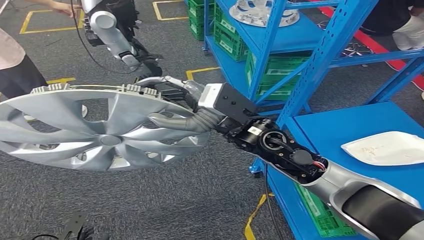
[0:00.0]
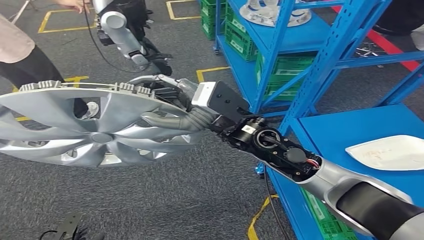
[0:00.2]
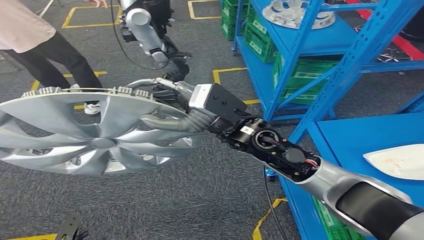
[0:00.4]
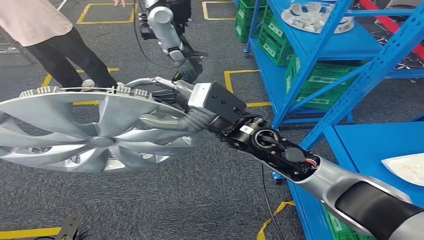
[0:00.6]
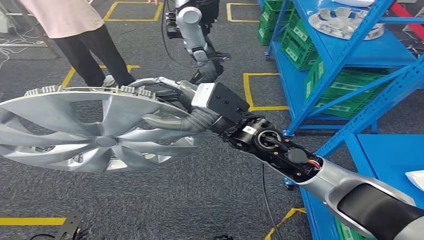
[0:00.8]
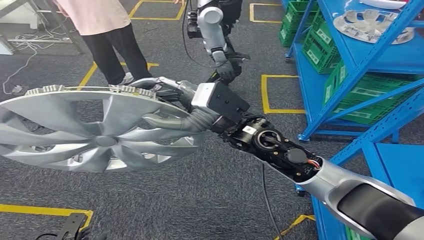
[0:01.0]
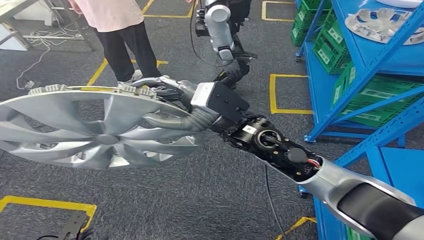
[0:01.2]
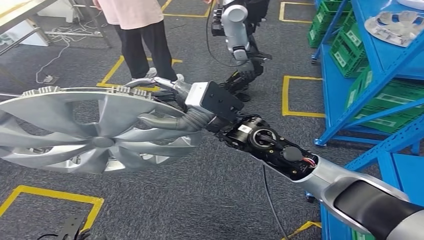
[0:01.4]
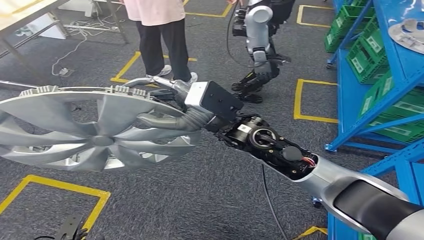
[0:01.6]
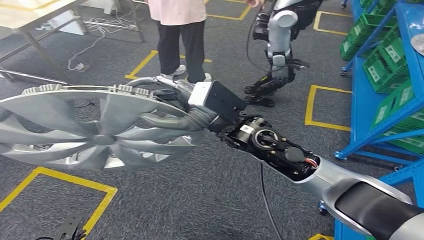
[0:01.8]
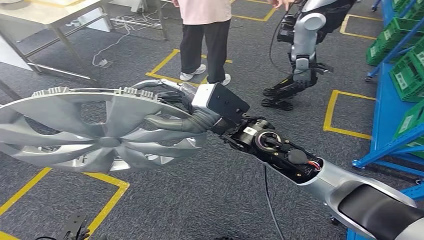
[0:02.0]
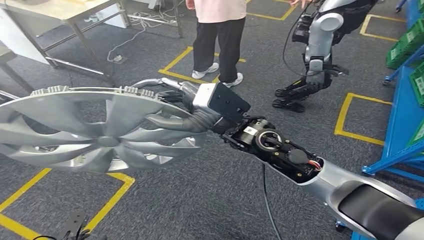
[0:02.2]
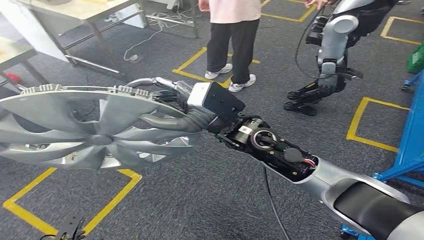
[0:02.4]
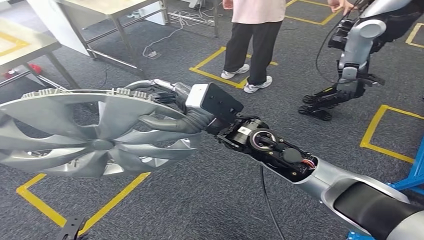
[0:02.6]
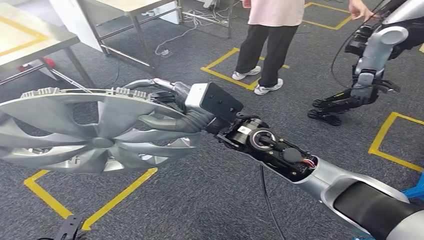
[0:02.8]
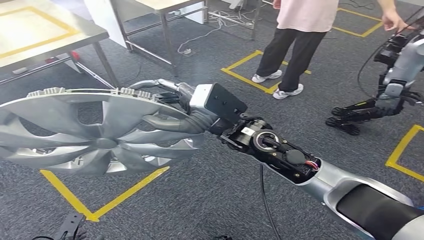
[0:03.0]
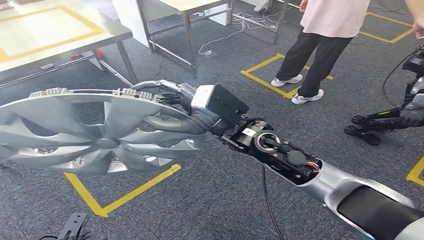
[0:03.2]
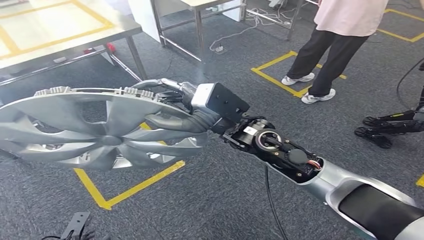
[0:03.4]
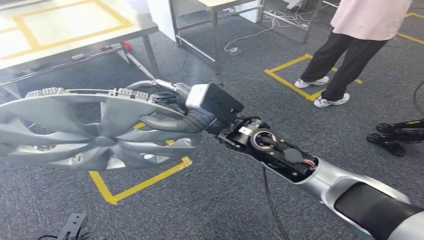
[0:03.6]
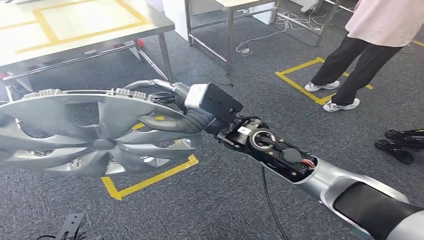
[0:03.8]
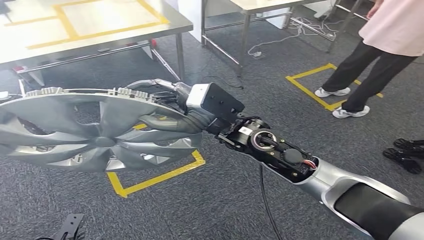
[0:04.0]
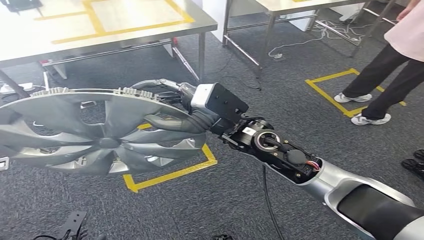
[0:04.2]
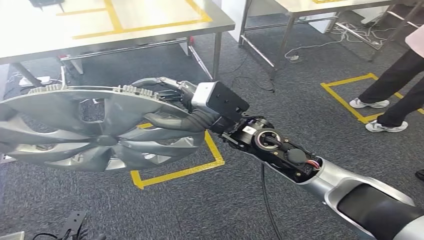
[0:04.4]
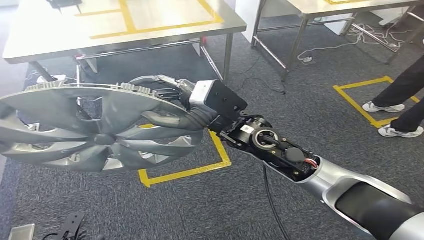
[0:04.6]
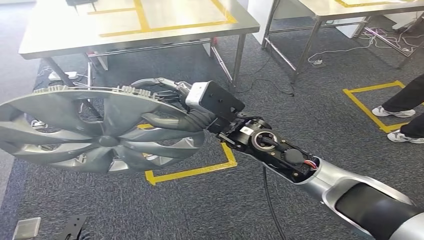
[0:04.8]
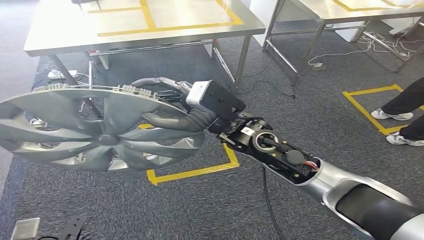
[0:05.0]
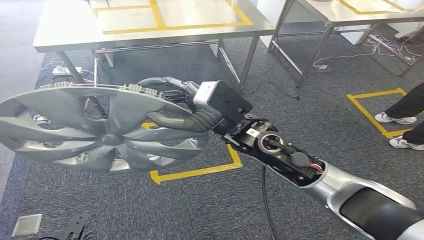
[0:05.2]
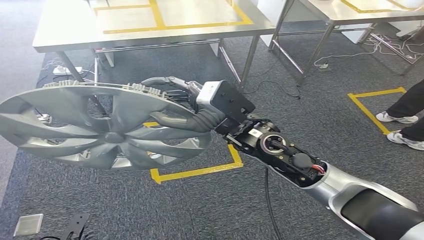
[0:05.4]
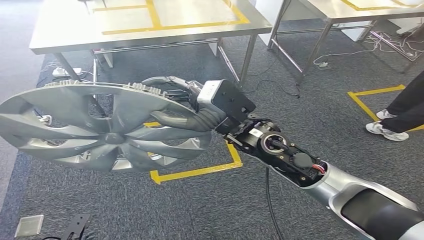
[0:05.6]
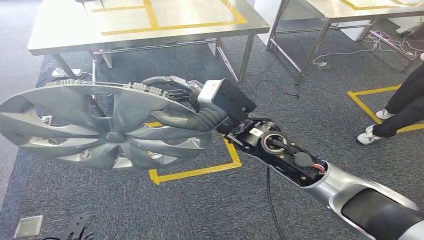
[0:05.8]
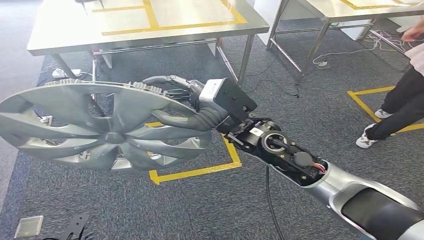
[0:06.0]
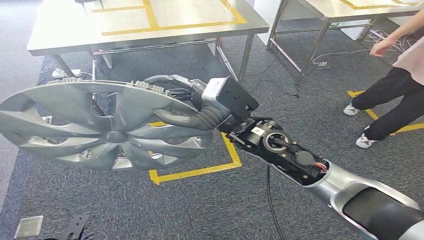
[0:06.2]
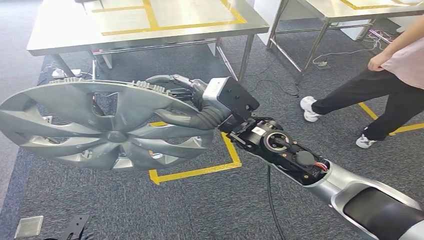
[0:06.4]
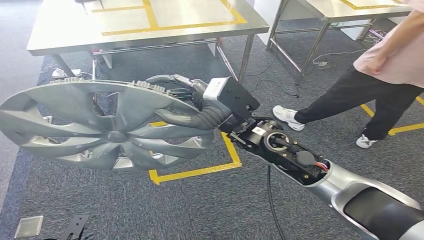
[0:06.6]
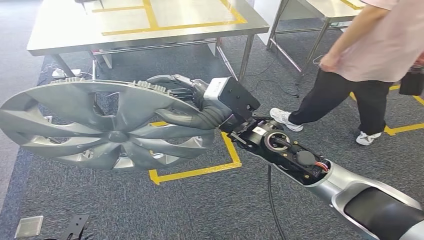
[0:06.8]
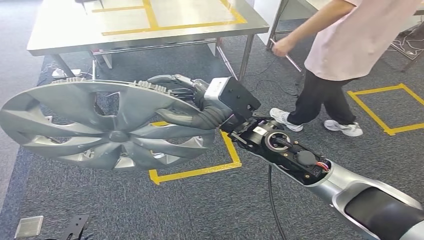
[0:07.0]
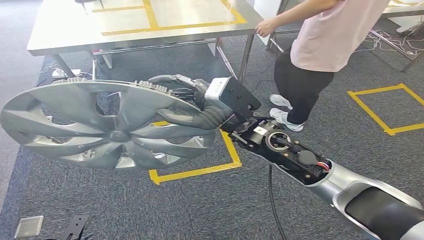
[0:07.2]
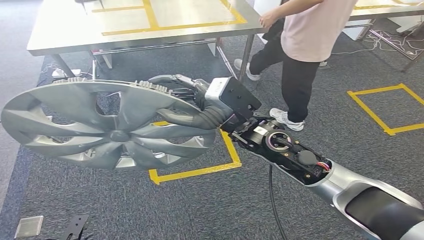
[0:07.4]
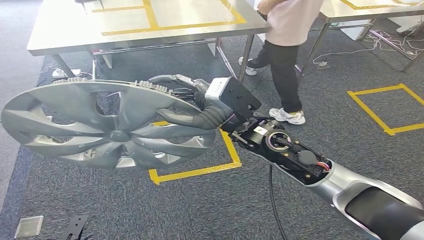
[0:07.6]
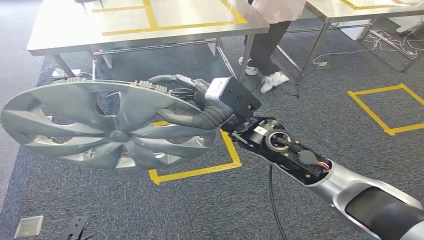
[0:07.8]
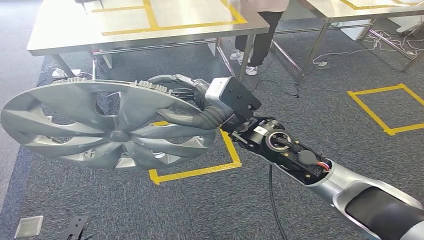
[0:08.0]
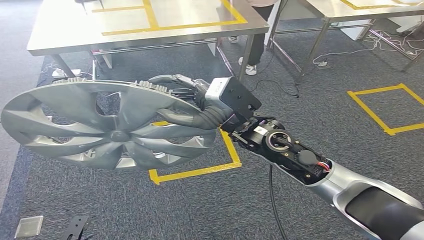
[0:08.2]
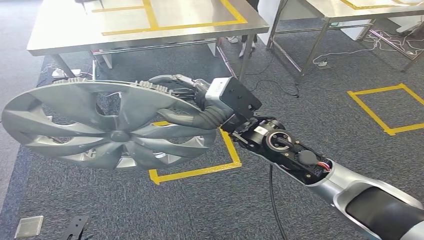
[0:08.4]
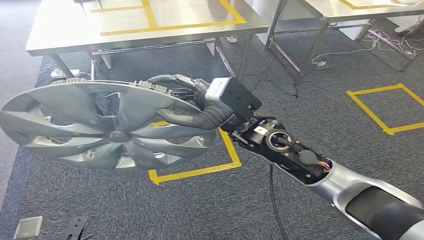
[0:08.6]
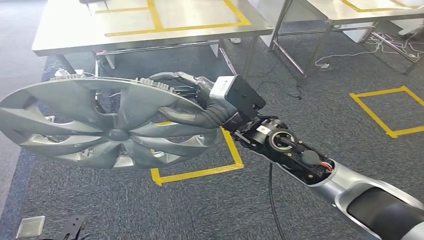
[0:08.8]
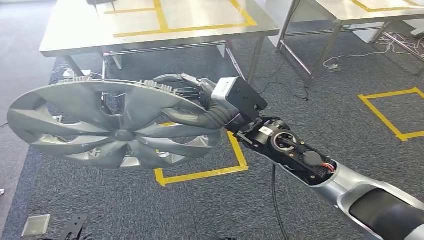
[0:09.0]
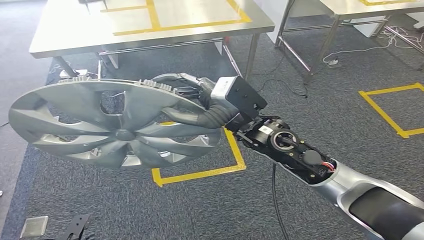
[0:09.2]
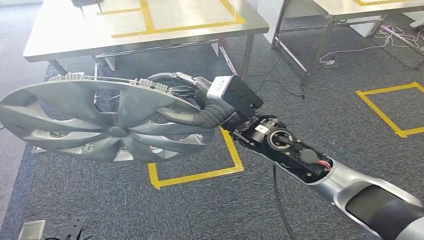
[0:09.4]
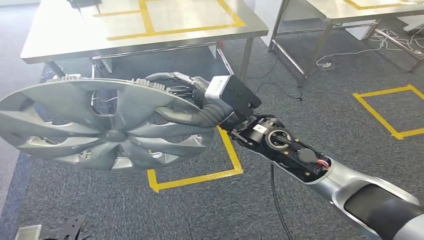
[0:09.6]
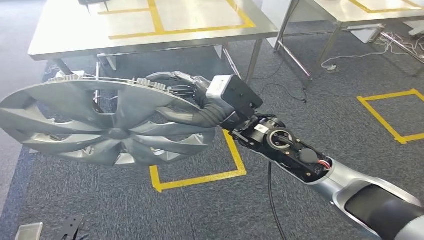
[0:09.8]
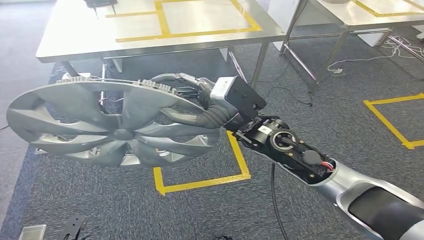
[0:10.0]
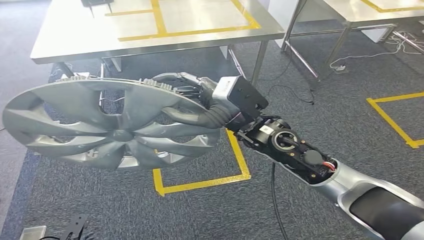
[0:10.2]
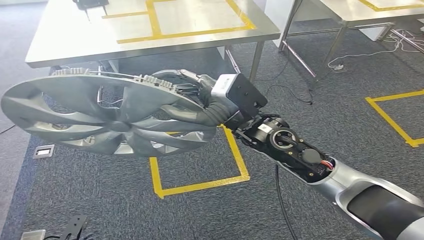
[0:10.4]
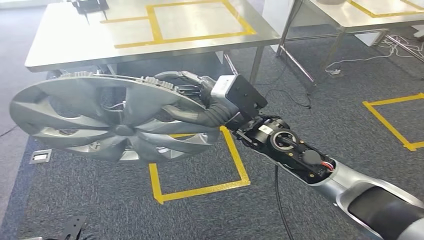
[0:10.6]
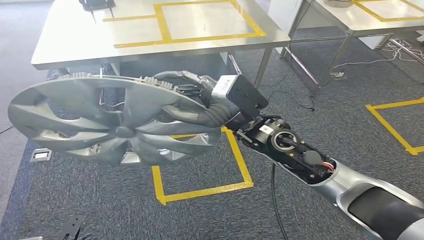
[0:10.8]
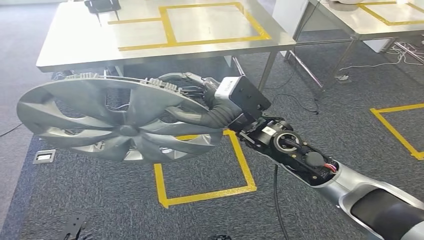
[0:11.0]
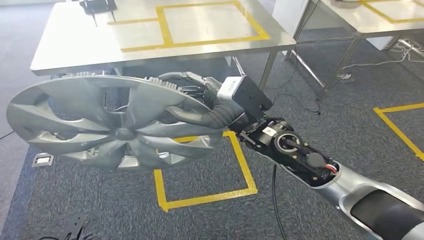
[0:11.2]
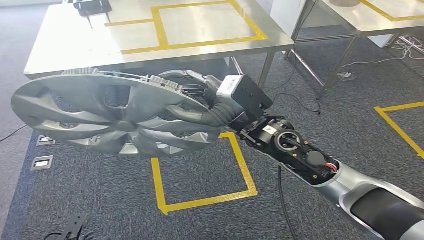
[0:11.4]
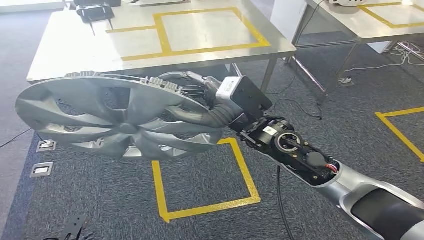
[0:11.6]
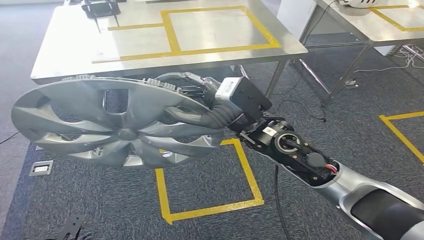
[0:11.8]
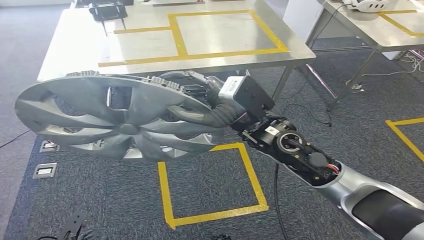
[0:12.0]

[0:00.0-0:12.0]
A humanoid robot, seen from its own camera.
0:06.0 to 0:07.6: Both hands stay put.

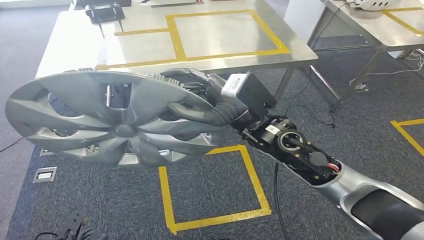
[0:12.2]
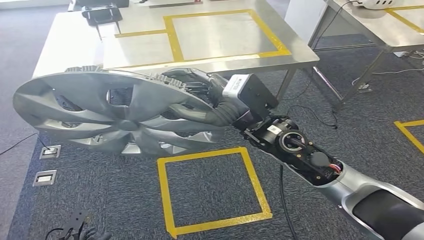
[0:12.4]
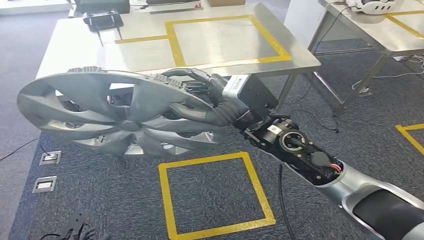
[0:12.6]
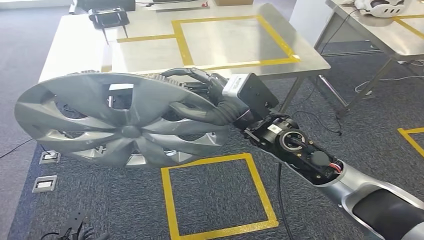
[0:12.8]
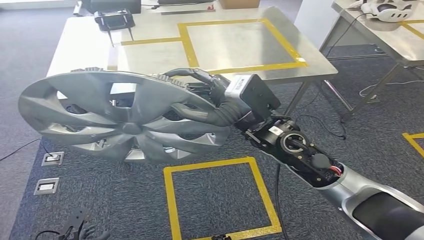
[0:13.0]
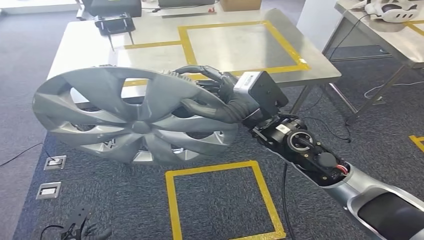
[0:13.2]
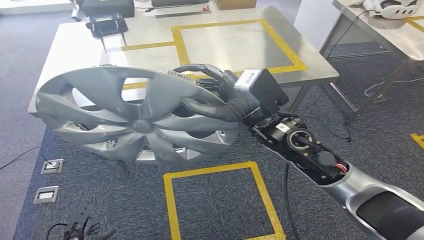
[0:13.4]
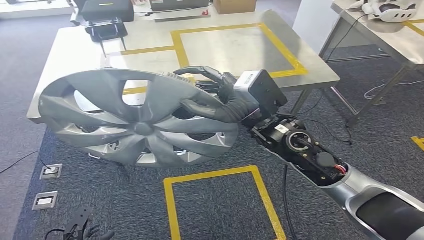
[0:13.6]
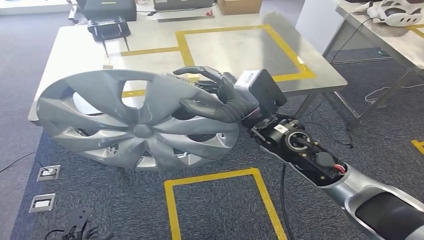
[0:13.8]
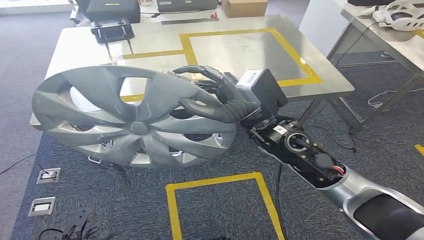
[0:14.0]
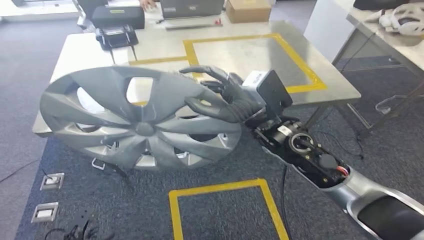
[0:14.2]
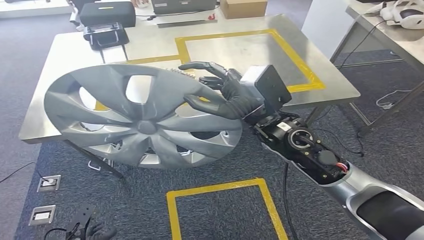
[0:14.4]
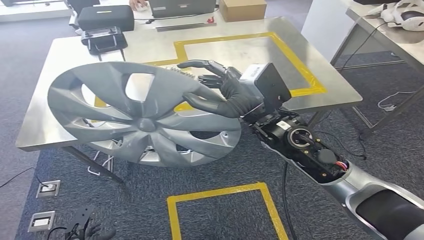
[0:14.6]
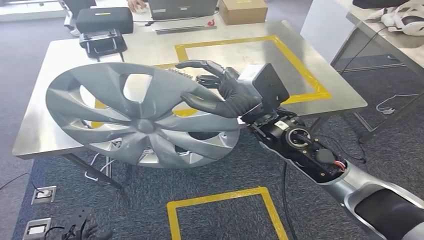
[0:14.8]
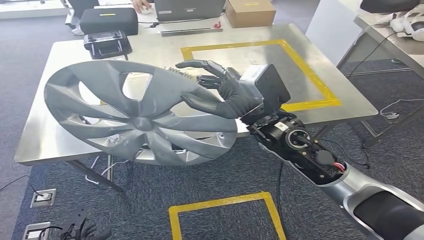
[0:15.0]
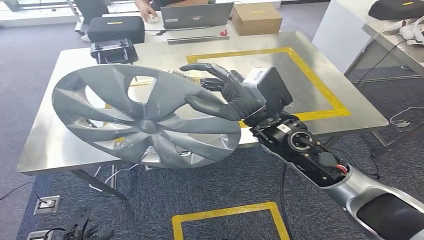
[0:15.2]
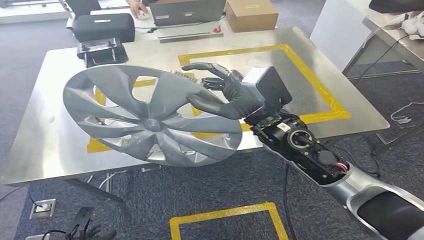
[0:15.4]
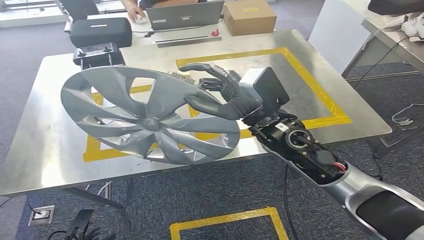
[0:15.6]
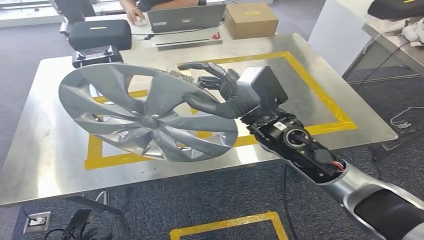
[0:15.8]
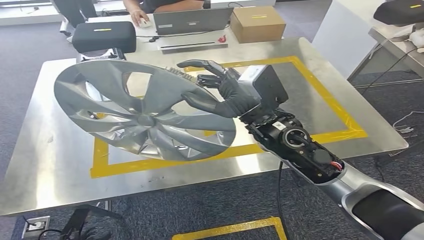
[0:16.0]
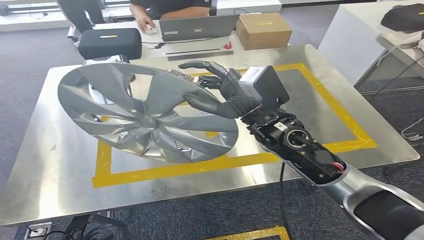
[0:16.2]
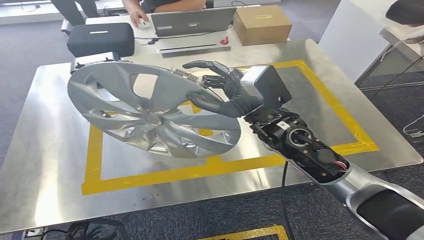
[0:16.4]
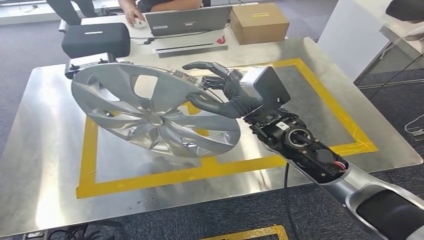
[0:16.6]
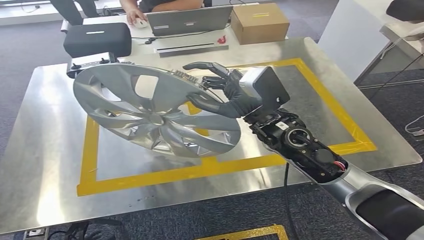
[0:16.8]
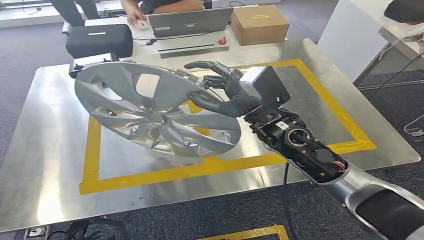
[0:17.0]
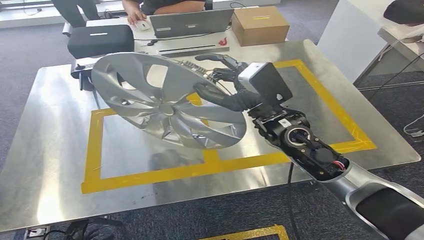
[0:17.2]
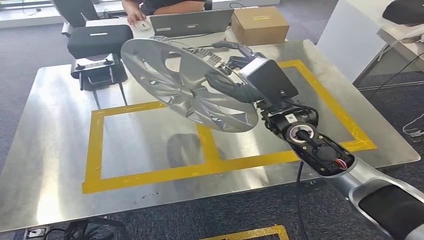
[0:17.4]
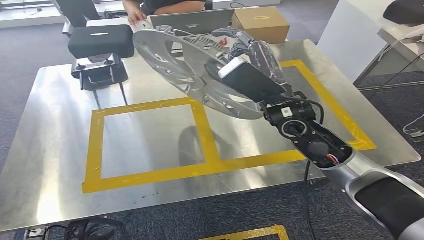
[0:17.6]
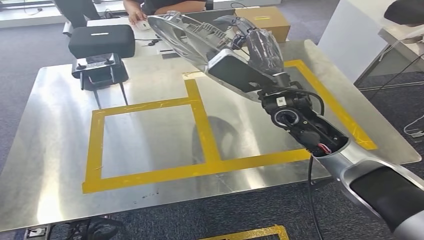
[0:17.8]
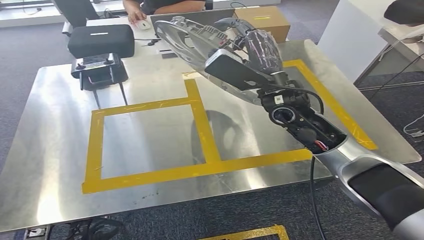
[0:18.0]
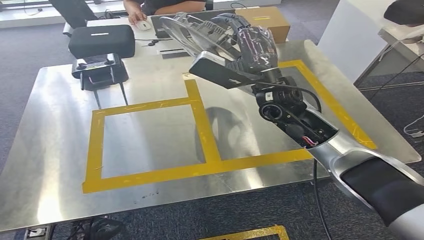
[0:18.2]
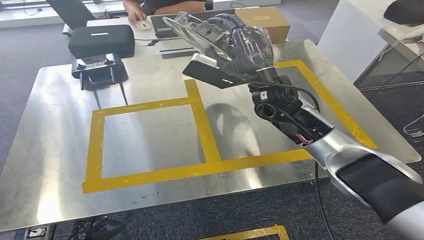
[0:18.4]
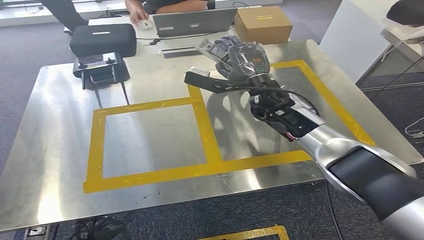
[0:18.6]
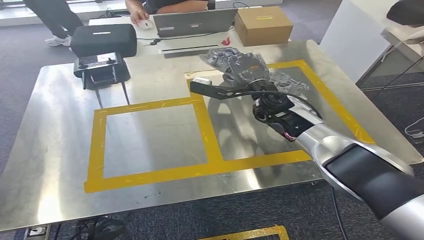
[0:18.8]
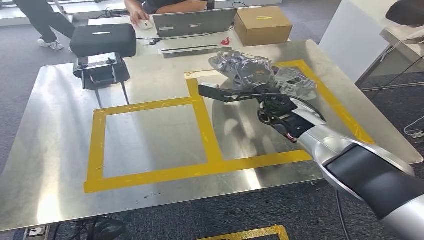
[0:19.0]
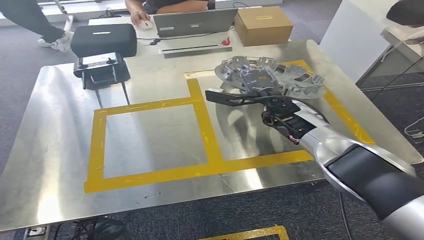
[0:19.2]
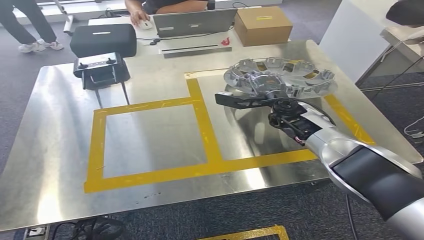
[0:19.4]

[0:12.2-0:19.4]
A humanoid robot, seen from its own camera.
Step, 0:12.2 to 0:16.8: Move the small parts to the workbench.
